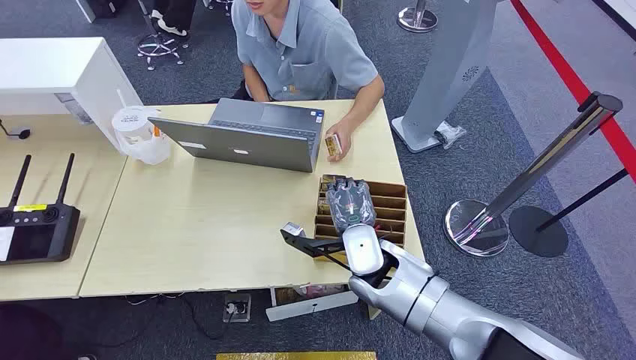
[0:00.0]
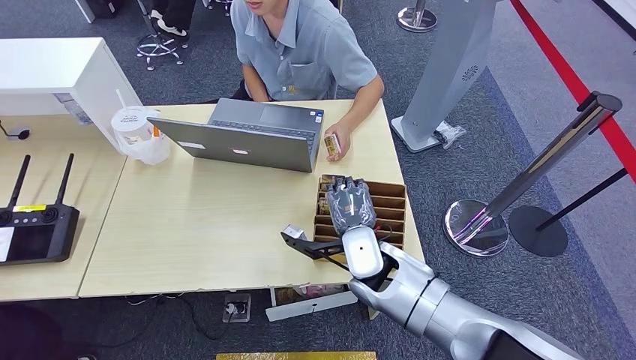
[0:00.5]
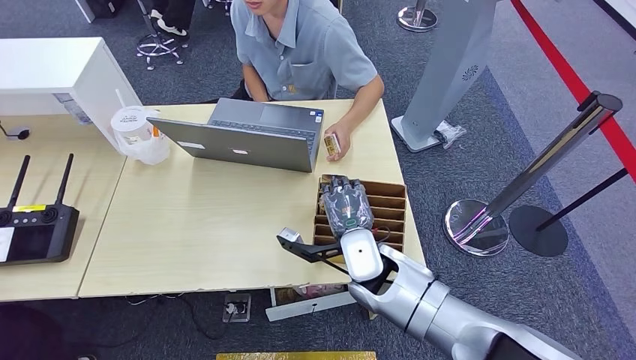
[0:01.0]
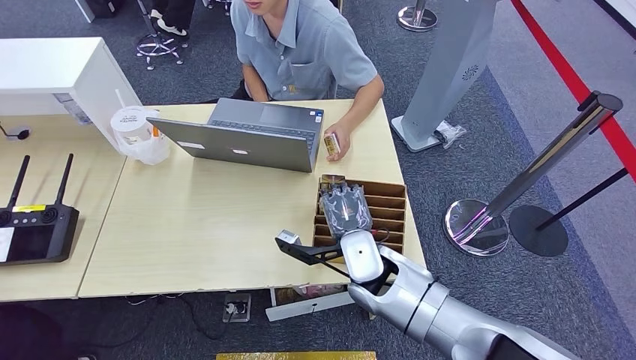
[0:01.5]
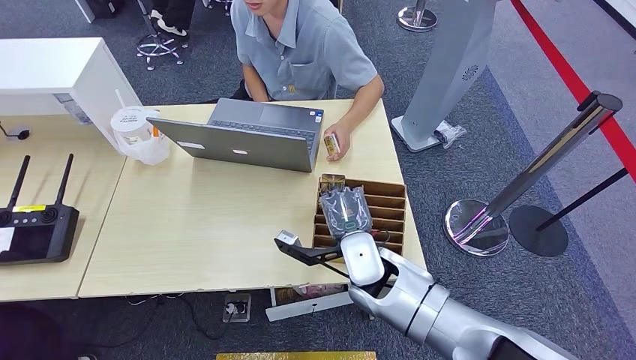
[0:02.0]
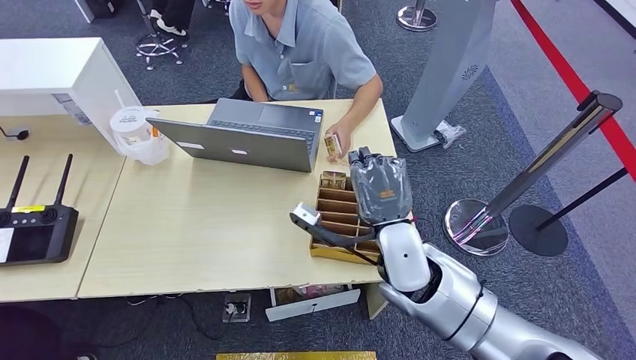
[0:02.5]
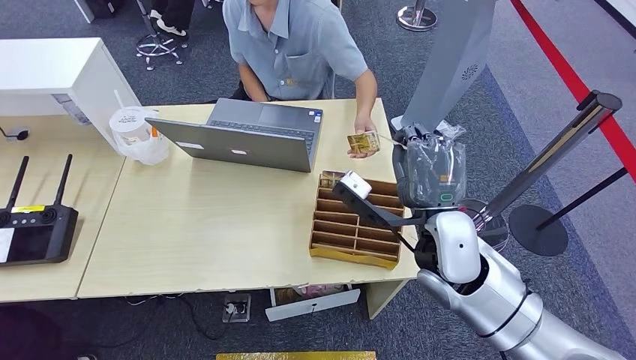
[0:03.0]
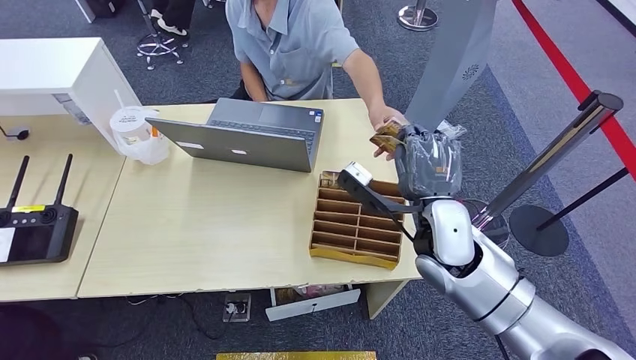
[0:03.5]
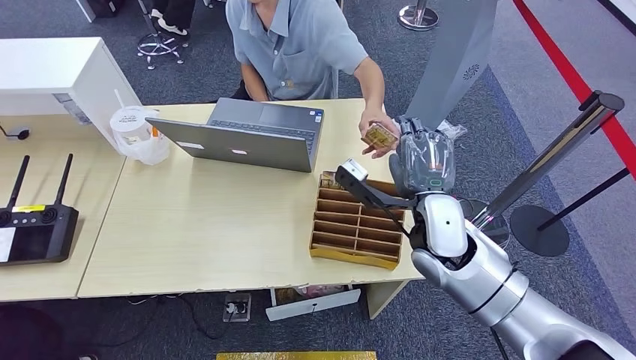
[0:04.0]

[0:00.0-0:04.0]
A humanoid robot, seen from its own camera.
Step, 0:00.0 to 0:02.0: Pick up the room card from the card holder.
Step, 0:03.5 to 0:04.0: Hand the room card to the target.
0:02.0 to 0:04.0: The right hand shifts some 10 cm to the right and upward.
